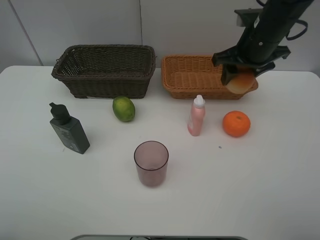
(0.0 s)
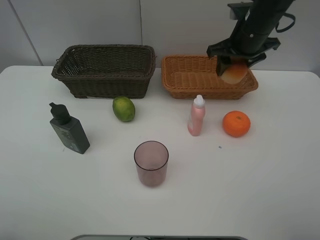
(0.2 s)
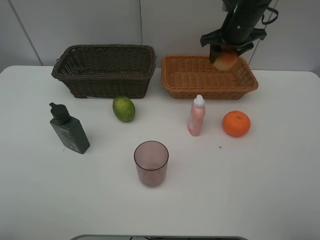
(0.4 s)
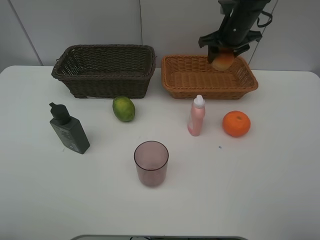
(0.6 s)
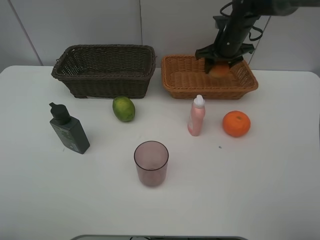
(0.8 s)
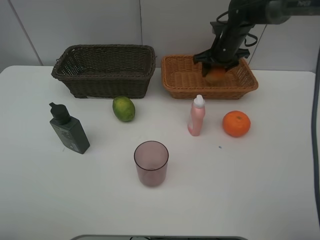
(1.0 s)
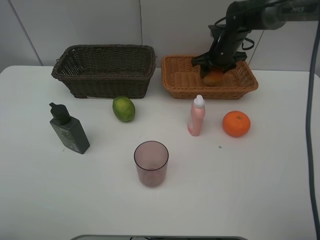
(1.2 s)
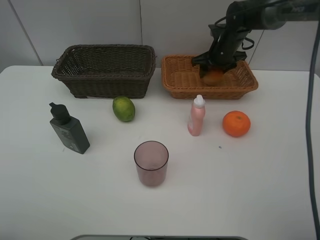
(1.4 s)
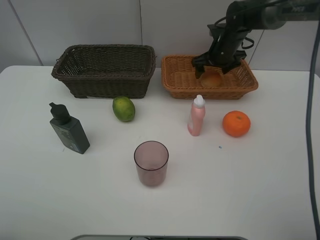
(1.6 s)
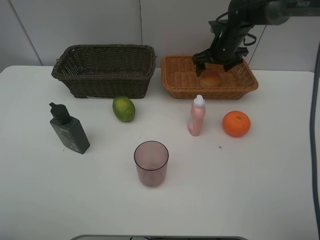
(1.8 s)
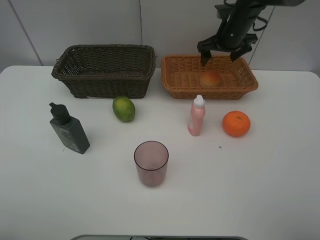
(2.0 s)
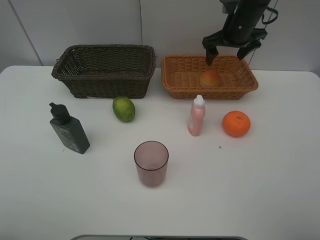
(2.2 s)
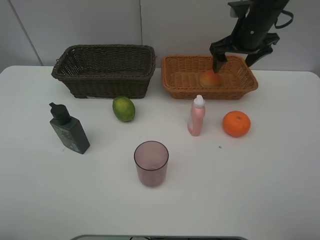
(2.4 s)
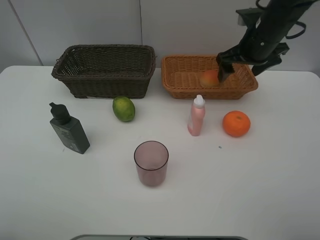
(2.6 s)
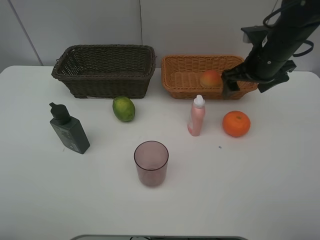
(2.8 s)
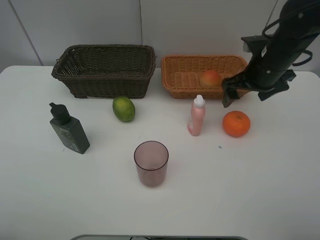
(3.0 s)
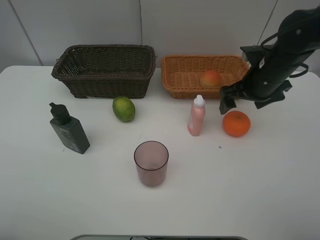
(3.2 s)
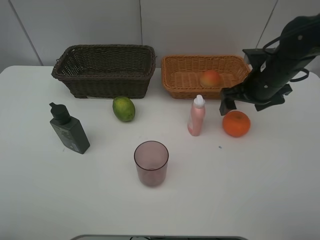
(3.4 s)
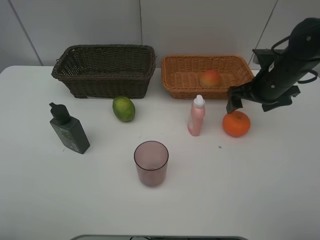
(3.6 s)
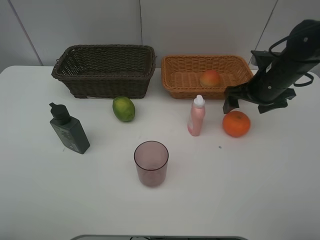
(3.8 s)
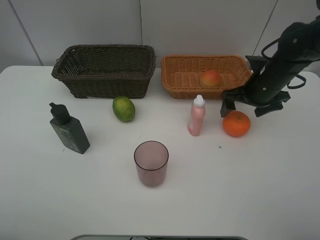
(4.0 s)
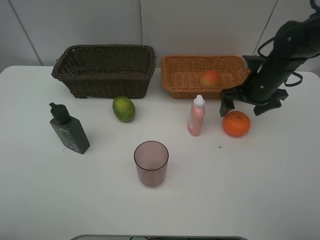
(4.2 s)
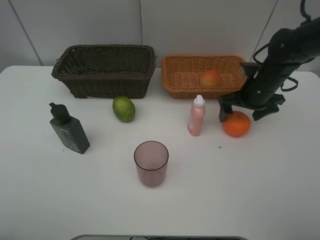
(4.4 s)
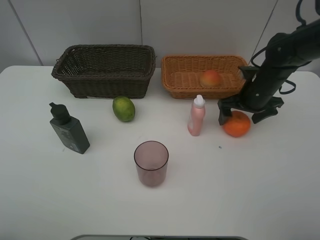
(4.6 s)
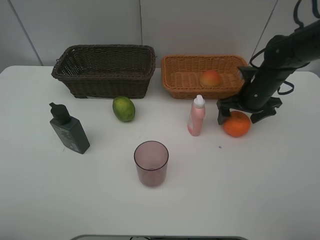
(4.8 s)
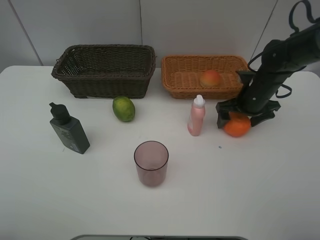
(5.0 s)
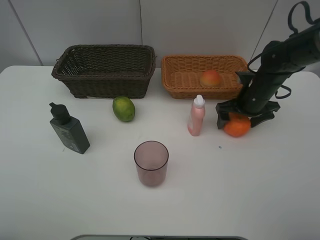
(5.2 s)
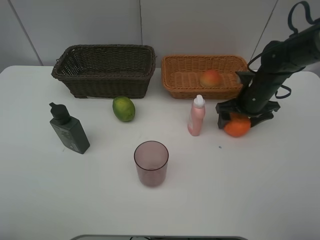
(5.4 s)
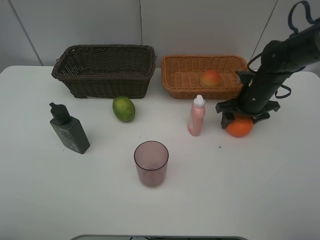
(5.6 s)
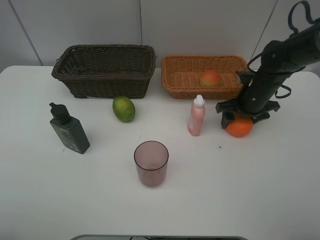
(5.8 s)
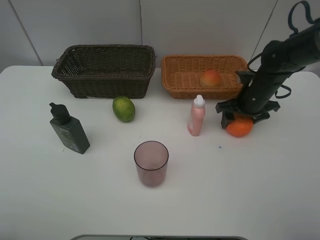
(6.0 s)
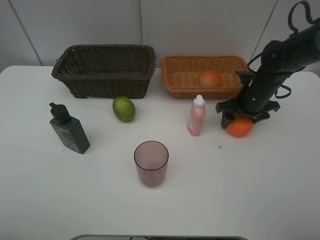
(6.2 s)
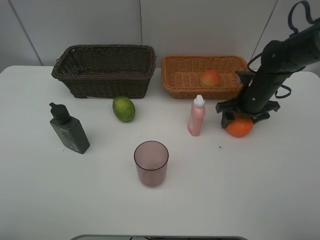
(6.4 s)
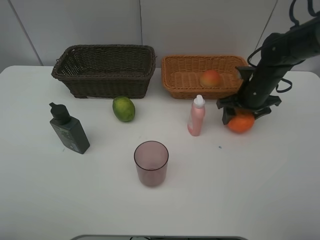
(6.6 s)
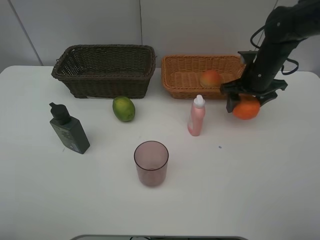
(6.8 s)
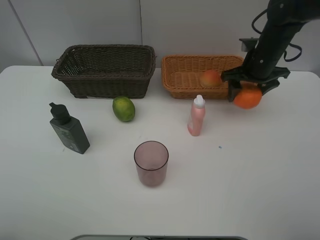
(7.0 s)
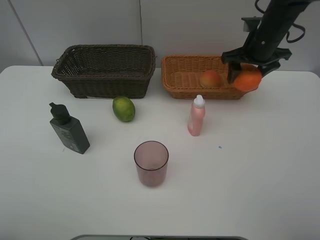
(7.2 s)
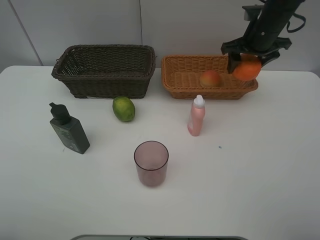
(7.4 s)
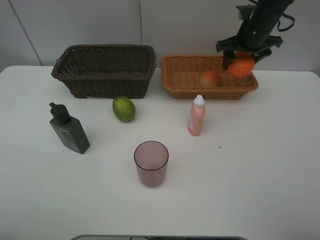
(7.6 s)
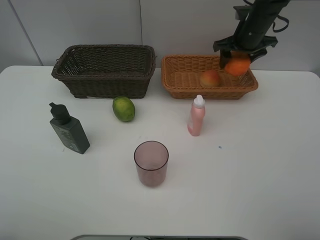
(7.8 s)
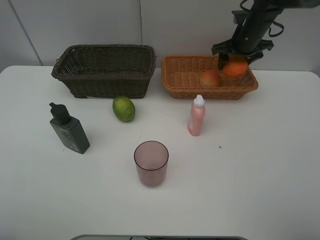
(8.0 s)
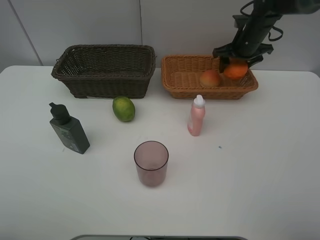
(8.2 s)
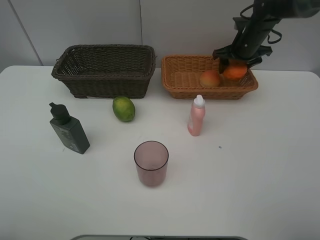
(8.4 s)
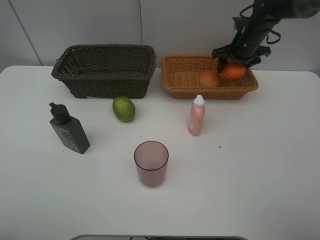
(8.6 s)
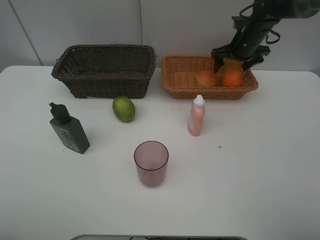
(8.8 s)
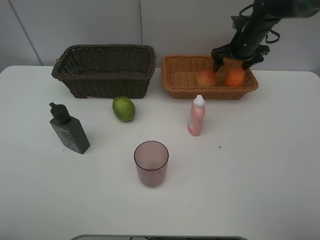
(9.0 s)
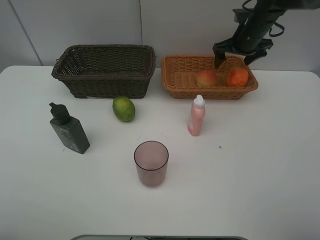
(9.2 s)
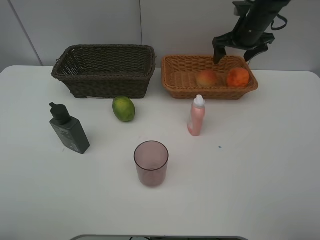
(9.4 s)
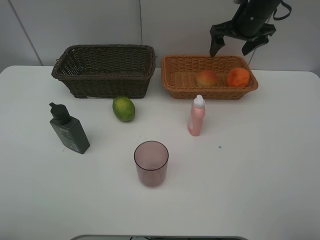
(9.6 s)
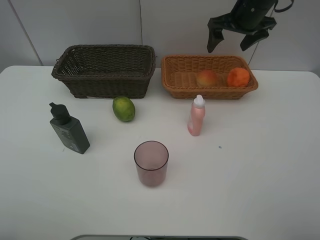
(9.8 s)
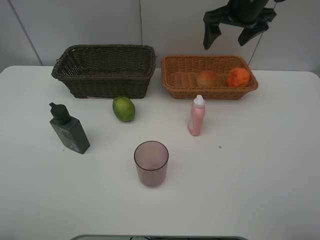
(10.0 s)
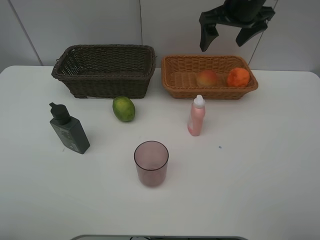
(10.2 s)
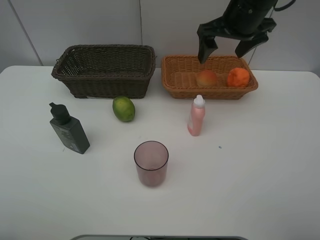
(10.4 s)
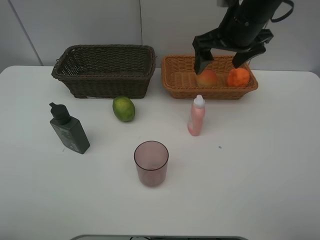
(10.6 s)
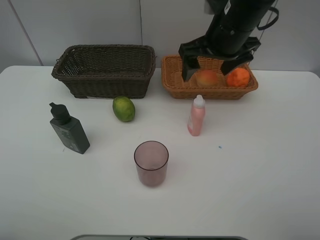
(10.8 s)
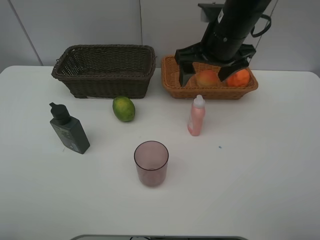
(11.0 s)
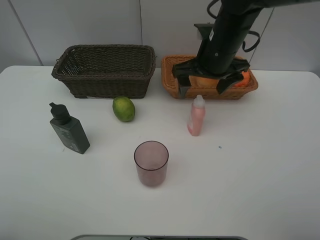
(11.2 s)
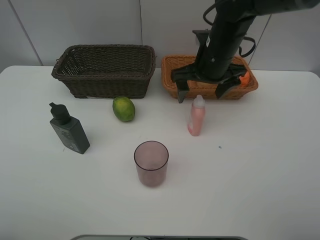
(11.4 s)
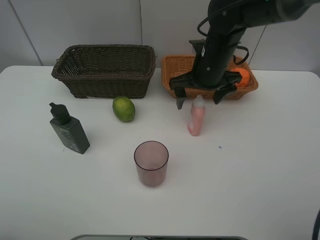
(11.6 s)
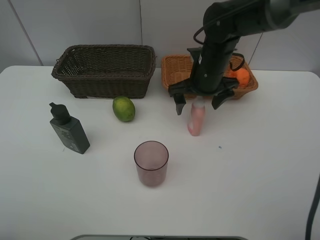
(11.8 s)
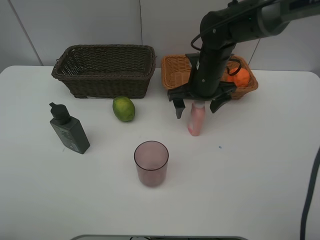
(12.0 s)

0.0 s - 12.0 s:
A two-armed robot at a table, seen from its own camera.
Task of the whole recording: place multiple objects separately in different baskets.
0.0 s - 1.6 s: The right gripper is displaced forward and downward by roughly 15 cm, and opens.
1.6 s - 3.0 s: The right gripper shifts about 15 cm backward.
3.0 s - 4.4 s: The right gripper moves downward, some 5 cm.
4.4 s - 6.0 s: There are only small adjustments of the grippers.
6.0 s - 7.6 s: The right gripper travels upward and forward by some 15 cm.
7.6 s - 9.0 s: The right gripper moves approximately 5 cm.
9.0 s - 10.4 s: The right gripper is displaced backward, upward and to the left by approximately 20 cm.
10.4 s - 12.0 s: The right gripper goes some 15 cm downward.

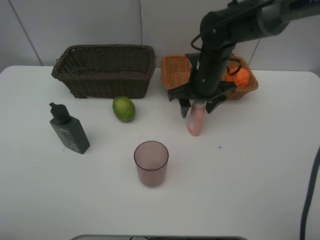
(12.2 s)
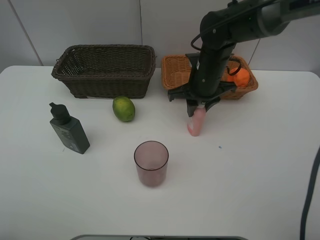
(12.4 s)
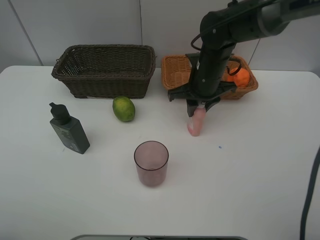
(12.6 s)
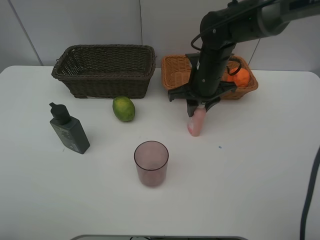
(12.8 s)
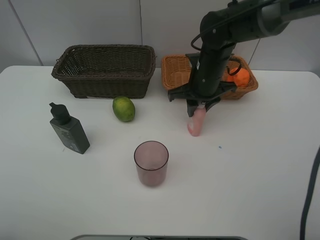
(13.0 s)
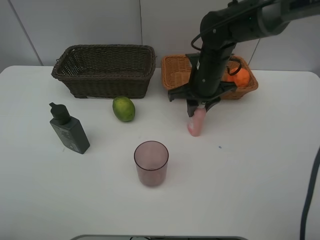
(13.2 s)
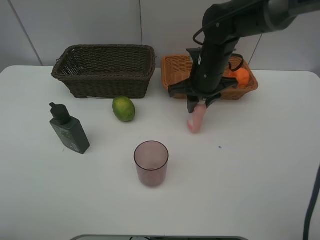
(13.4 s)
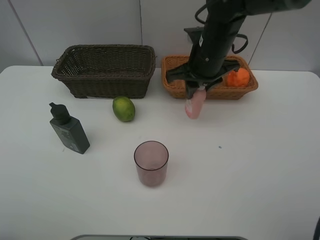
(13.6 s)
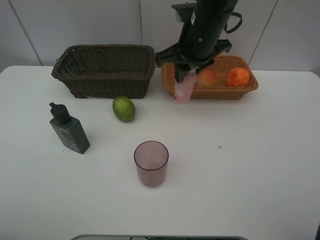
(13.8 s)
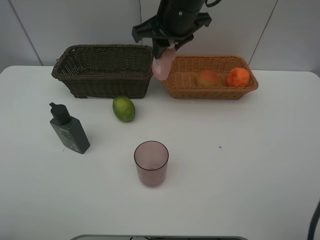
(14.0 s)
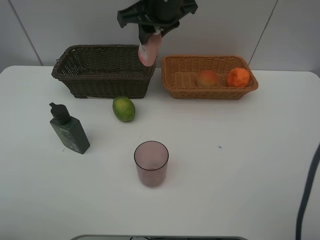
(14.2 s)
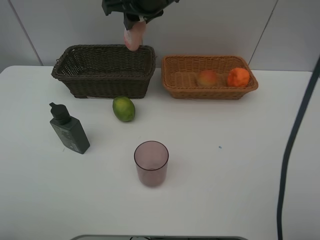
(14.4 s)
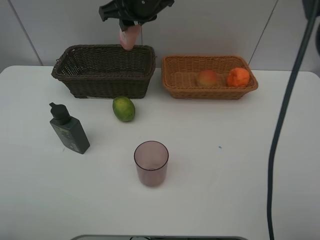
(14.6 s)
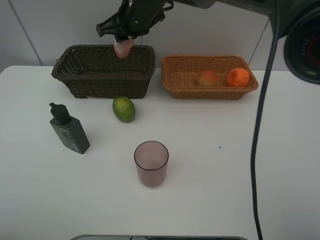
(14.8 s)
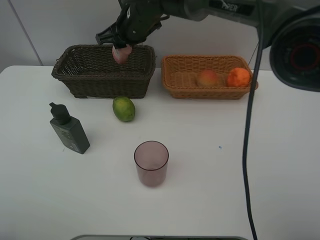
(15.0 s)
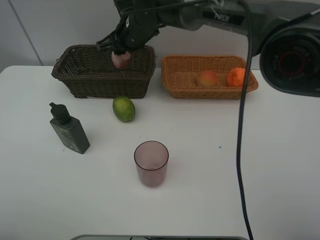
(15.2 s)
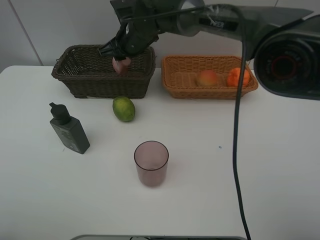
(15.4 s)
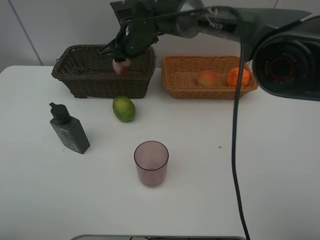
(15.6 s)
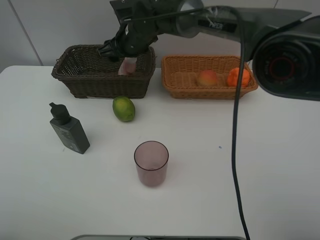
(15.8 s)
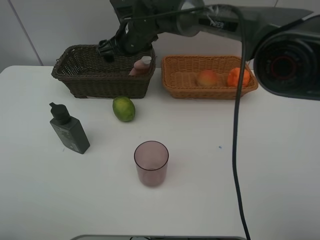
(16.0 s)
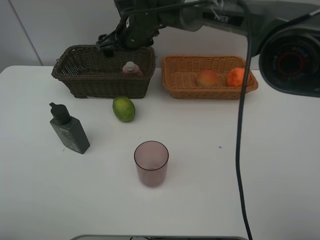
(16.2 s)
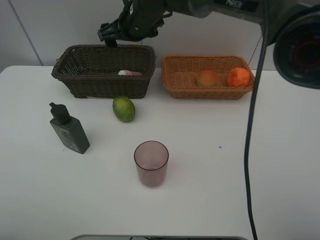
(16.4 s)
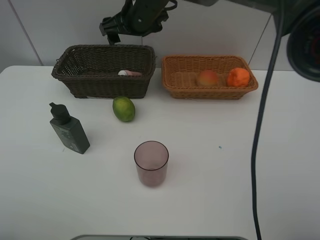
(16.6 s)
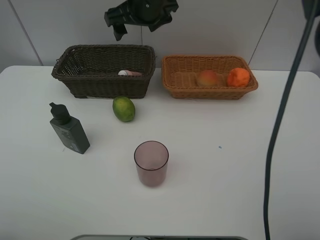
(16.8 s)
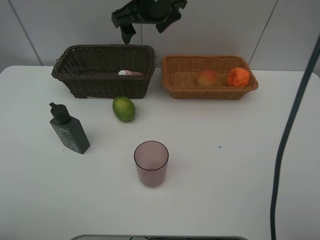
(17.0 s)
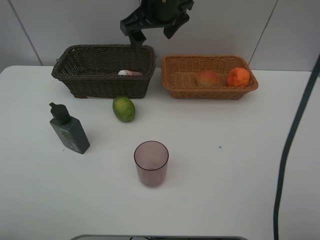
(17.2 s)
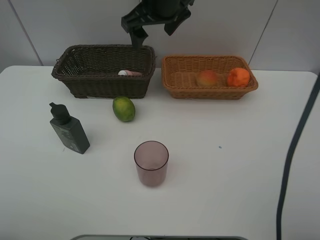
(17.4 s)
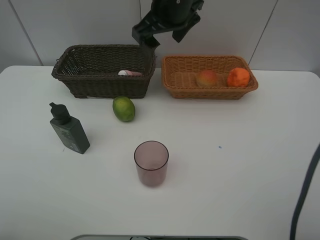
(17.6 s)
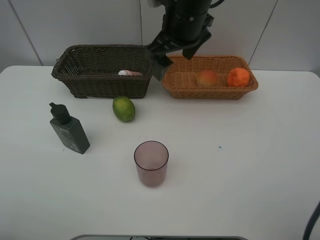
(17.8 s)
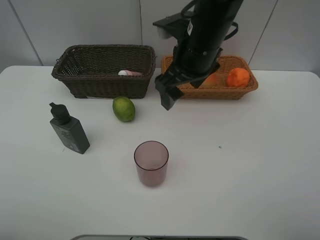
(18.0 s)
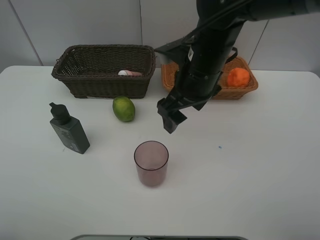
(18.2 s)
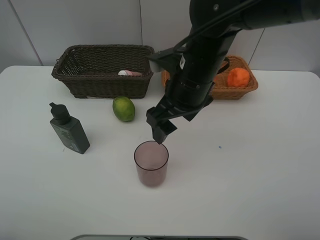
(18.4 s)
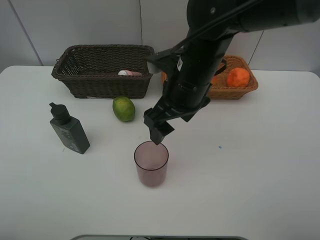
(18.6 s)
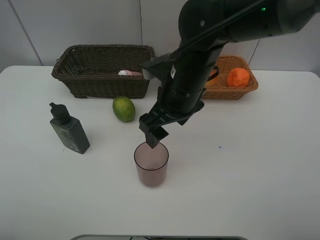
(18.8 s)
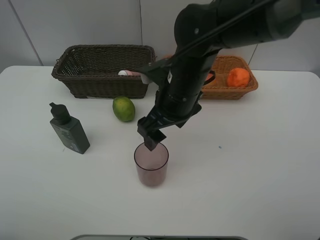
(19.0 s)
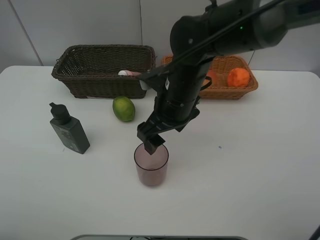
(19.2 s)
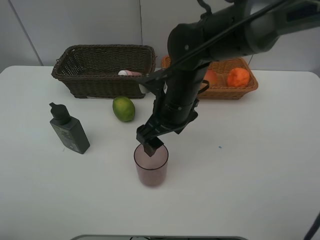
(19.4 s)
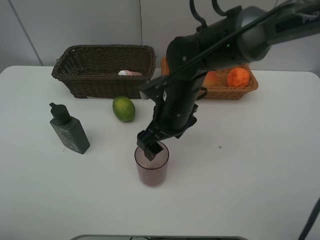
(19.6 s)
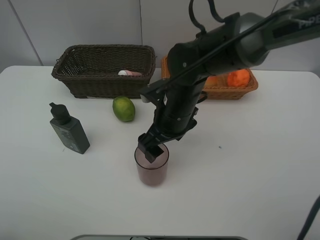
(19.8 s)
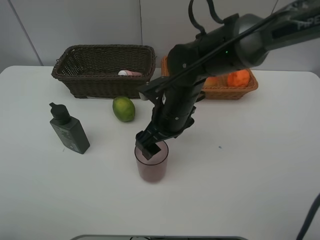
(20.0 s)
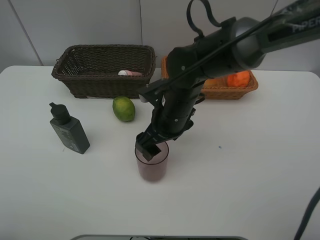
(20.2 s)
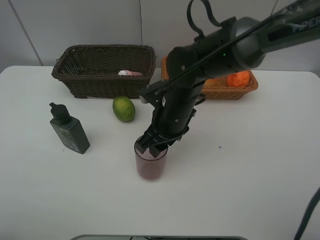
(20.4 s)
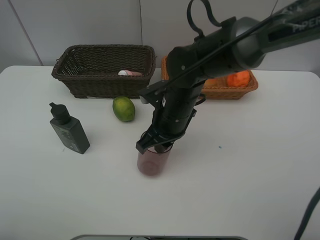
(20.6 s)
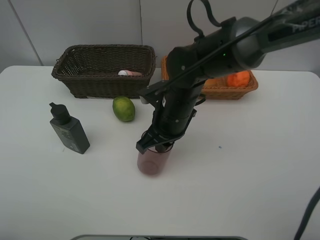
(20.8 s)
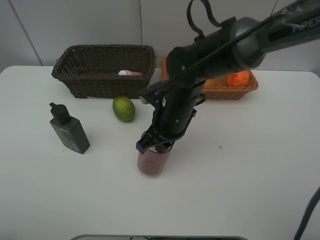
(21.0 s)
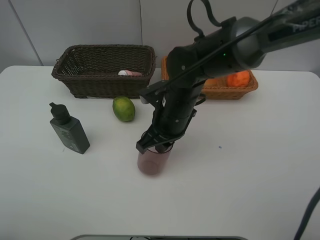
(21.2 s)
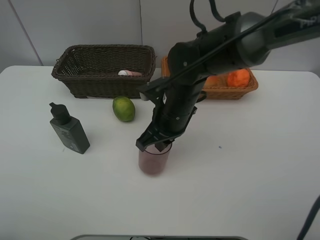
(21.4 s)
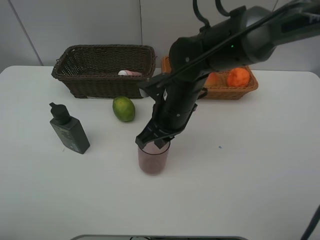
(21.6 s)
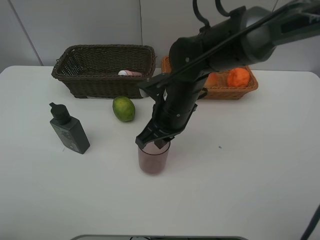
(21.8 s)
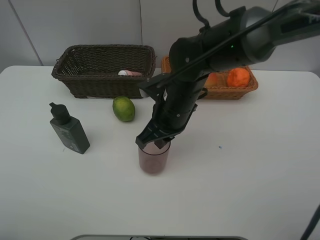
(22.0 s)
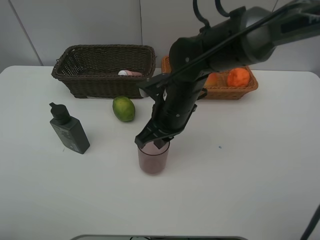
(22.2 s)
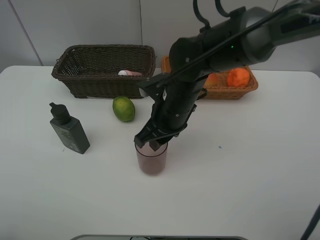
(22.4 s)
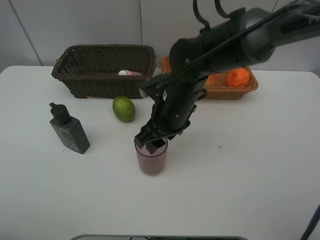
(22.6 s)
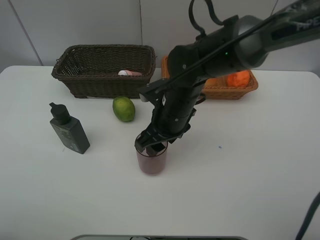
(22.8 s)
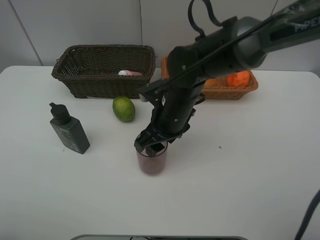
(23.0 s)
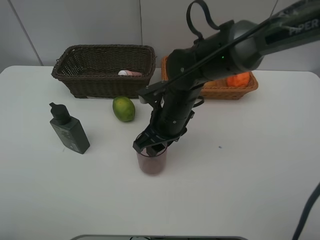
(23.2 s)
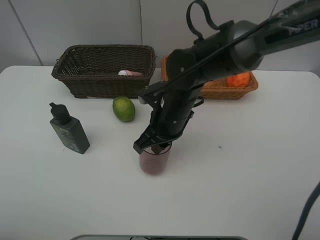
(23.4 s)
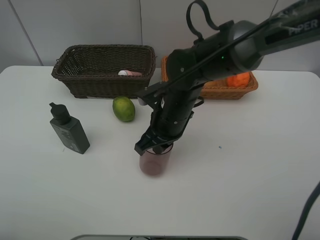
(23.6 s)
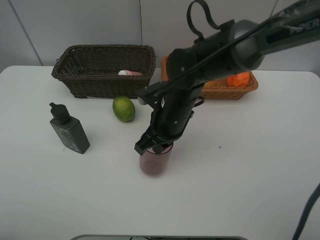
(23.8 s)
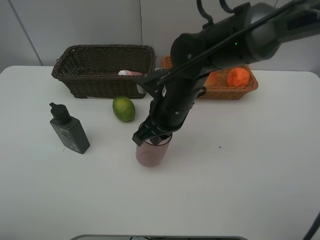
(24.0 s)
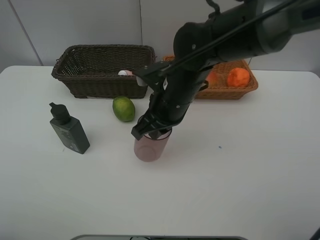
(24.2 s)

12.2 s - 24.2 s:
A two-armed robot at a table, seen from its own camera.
Task of the whole recording: place multiple objects separately in different baskets.
12.2 s - 13.8 s: The right gripper shifts approximately 10 cm upward.
13.8 s - 15.2 s: The right gripper heads to the left, forward and downward, covering approximately 15 cm.
15.2 s - 16.6 s: The right gripper shifts approximately 5 cm upward, and opens.
16.6 s - 18.2 s: The right gripper moves backward and to the right, about 20 cm.
18.2 s - 19.8 s: The right gripper goes approximately 10 cm downward.
19.8 s - 21.2 s: The right gripper closes its fingers.
21.2 s - 22.6 s: The right gripper opens its fingers.
22.6 s - 24.2 s: The right gripper closes up.
